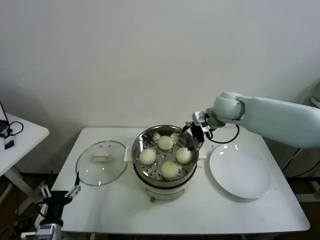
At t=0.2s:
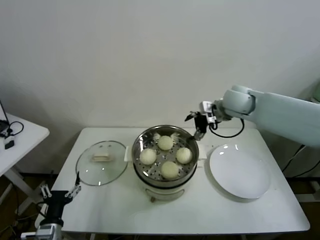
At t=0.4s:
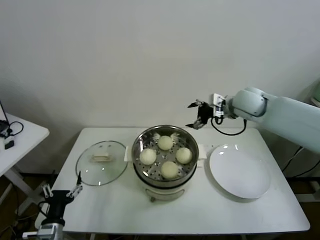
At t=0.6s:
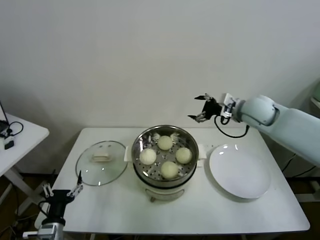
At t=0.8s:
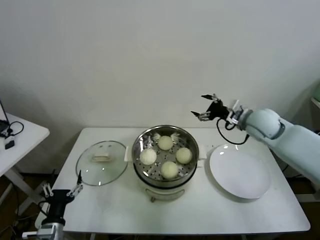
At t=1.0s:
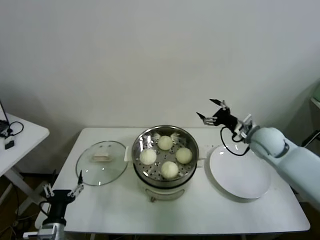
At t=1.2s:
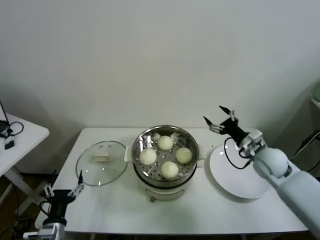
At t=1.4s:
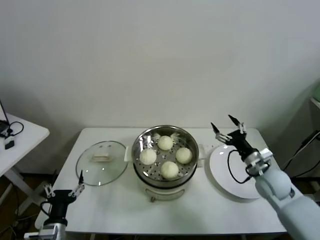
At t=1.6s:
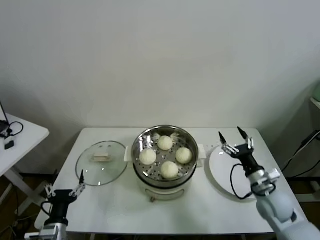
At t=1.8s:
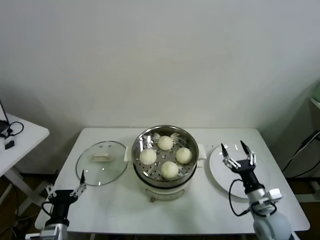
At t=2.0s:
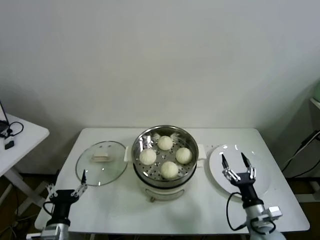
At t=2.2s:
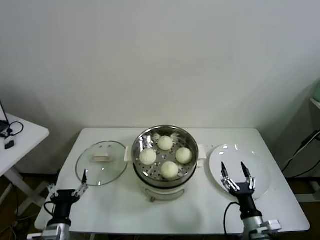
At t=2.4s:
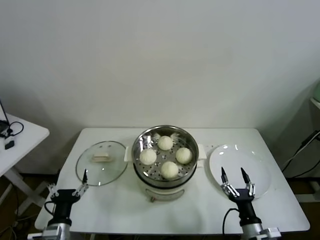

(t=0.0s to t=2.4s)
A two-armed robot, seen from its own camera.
Task of the whole recording: take steamed baozi put them in steamer.
t=0.0s - t=1.2s: The right gripper heads to the right, downward and backward, covering approximately 20 cm.
t=1.2s - t=2.4s: The right gripper shifts approximately 30 cm backward and downward.
